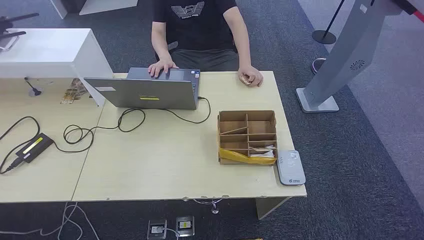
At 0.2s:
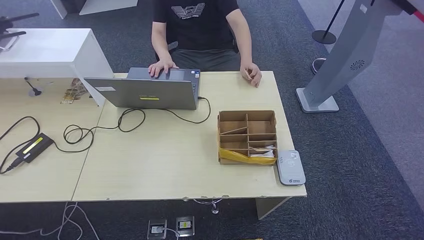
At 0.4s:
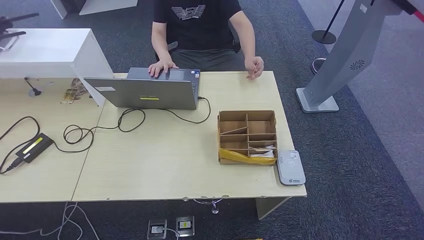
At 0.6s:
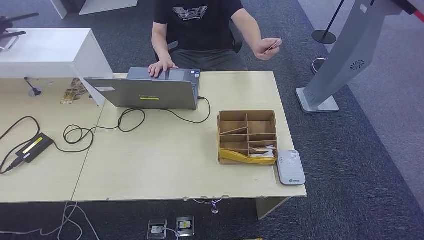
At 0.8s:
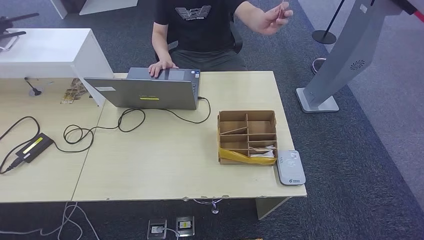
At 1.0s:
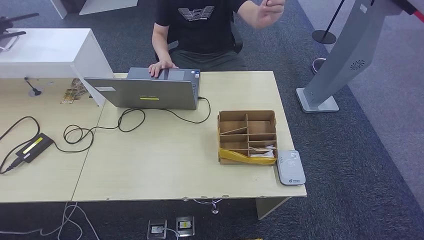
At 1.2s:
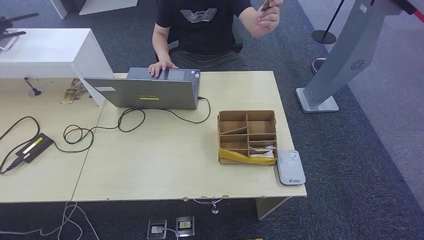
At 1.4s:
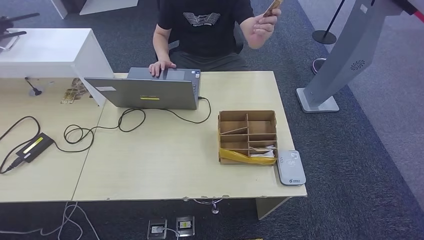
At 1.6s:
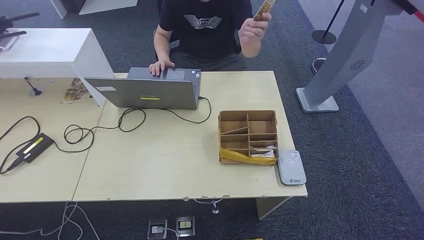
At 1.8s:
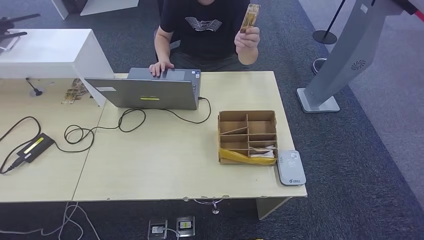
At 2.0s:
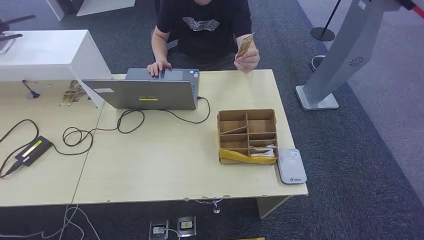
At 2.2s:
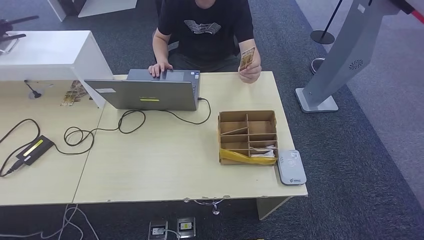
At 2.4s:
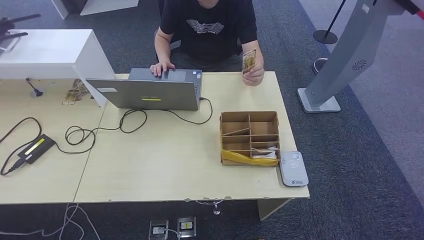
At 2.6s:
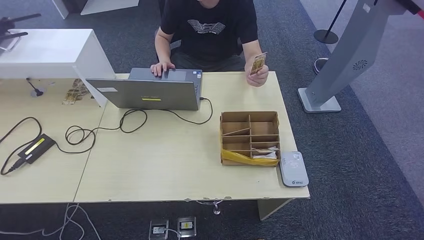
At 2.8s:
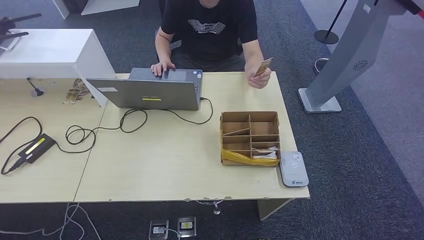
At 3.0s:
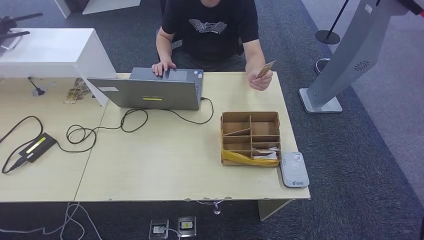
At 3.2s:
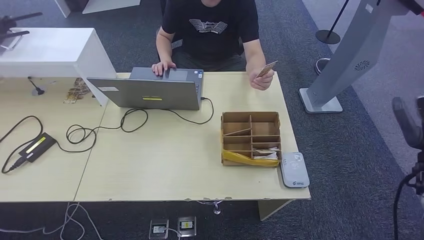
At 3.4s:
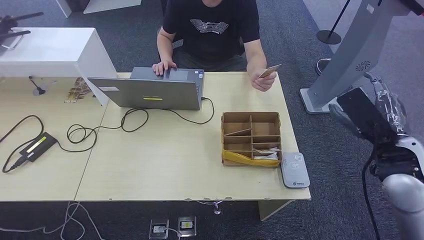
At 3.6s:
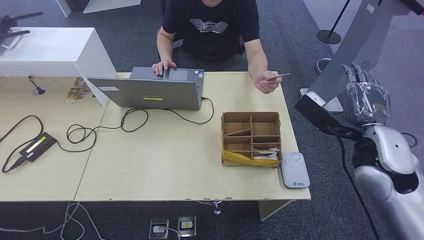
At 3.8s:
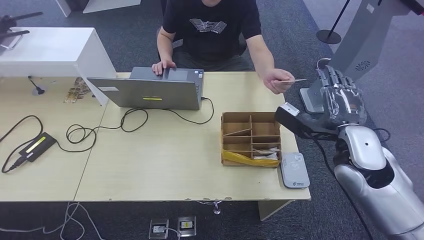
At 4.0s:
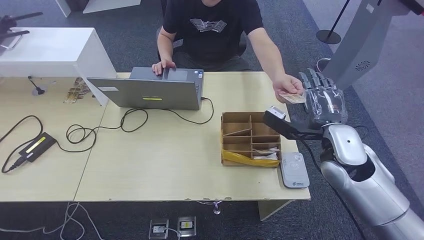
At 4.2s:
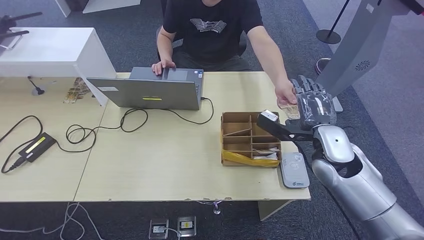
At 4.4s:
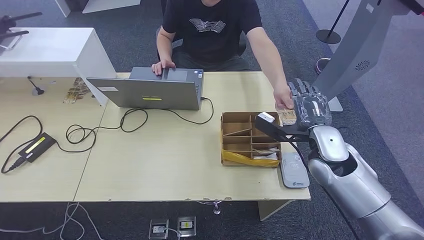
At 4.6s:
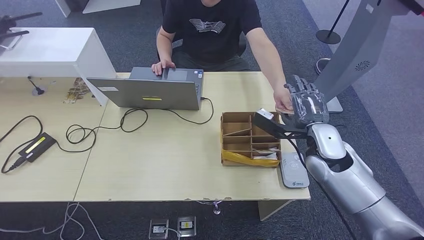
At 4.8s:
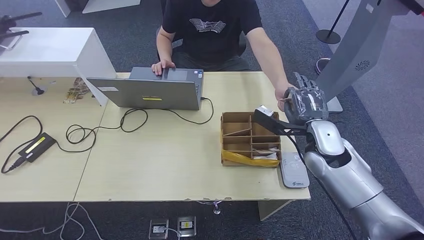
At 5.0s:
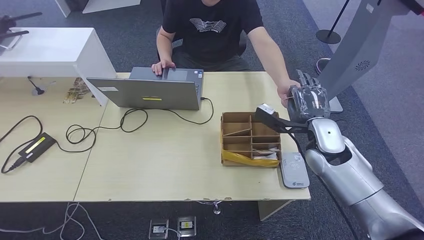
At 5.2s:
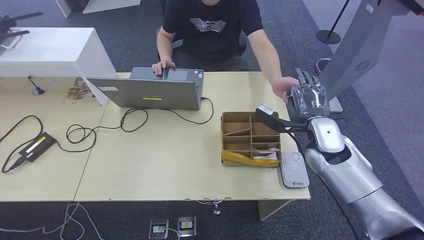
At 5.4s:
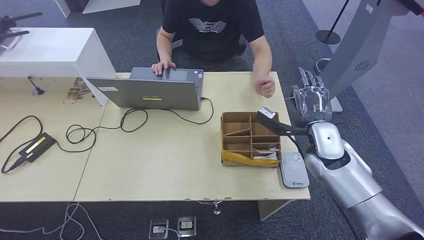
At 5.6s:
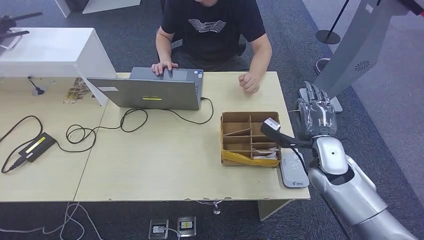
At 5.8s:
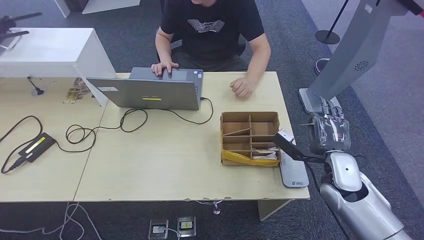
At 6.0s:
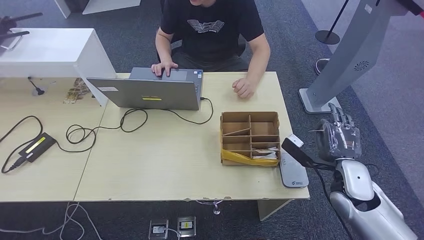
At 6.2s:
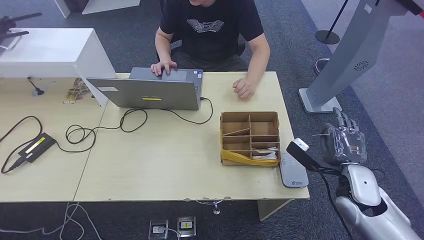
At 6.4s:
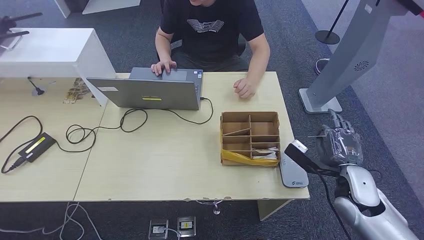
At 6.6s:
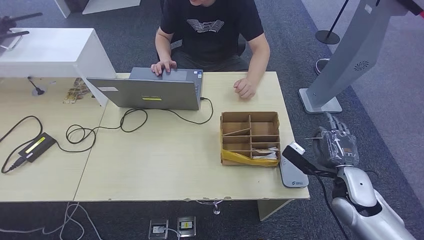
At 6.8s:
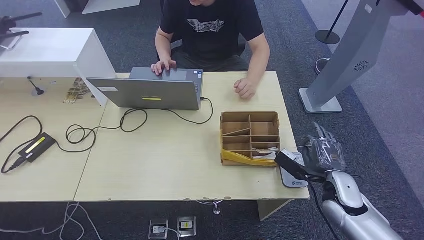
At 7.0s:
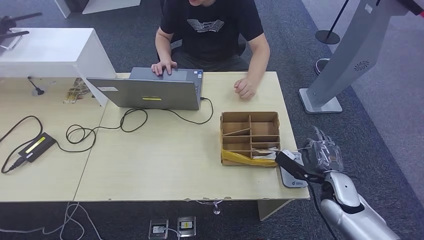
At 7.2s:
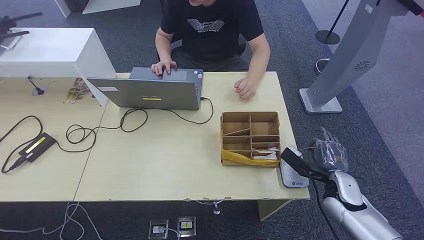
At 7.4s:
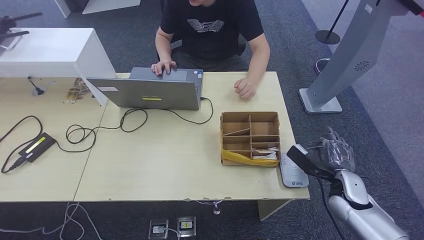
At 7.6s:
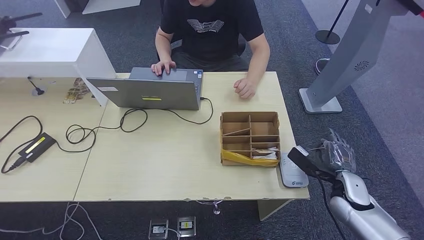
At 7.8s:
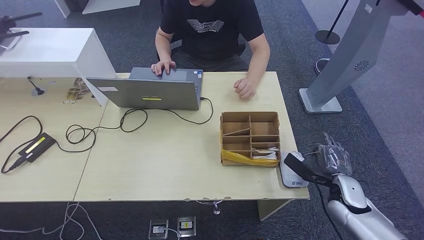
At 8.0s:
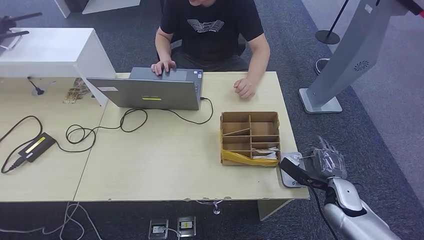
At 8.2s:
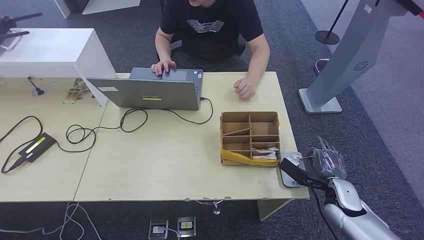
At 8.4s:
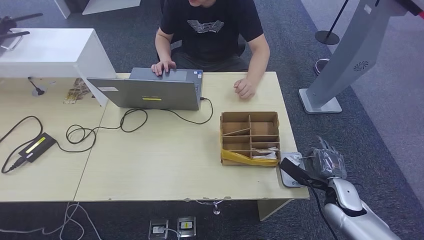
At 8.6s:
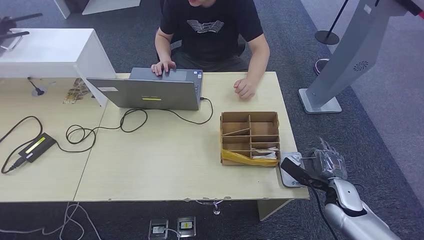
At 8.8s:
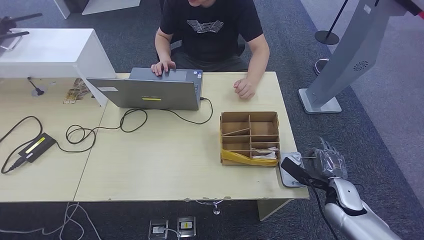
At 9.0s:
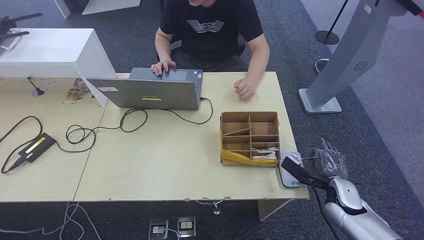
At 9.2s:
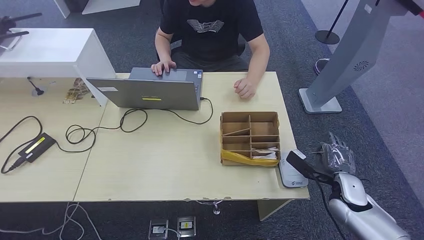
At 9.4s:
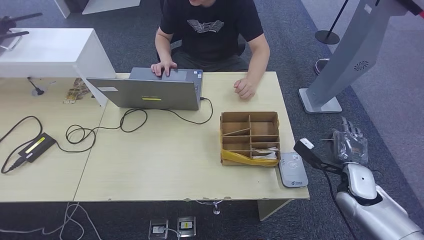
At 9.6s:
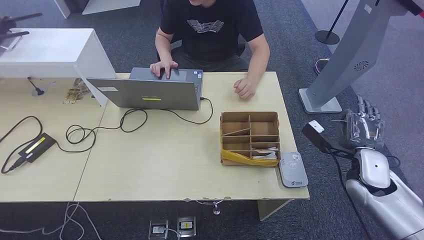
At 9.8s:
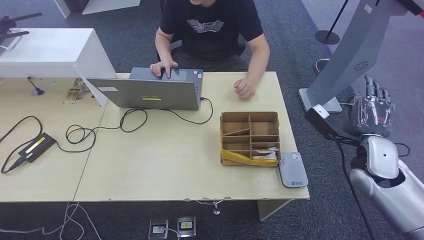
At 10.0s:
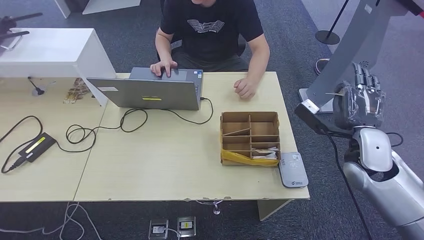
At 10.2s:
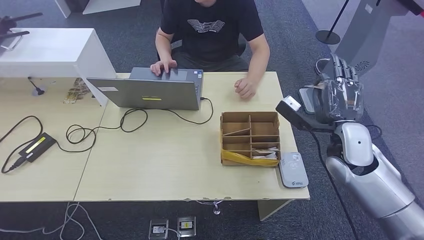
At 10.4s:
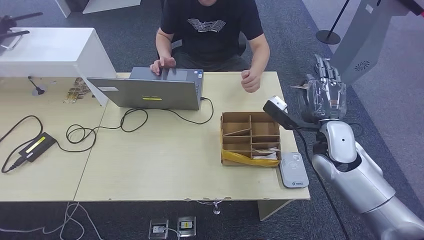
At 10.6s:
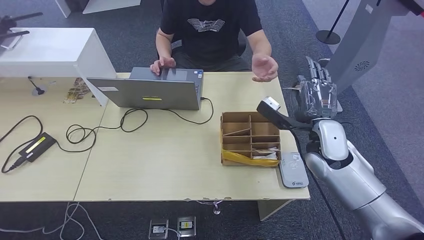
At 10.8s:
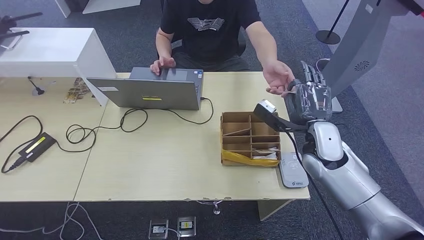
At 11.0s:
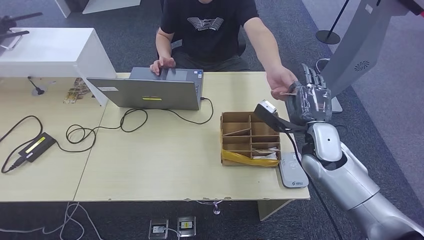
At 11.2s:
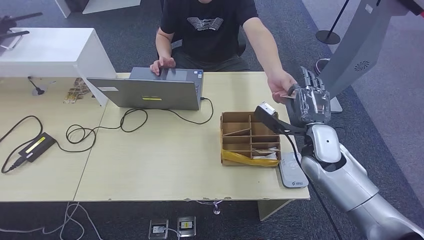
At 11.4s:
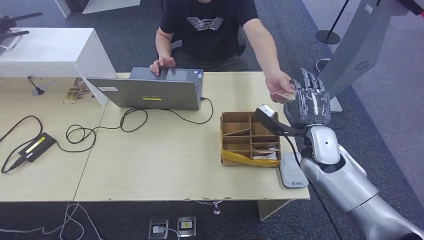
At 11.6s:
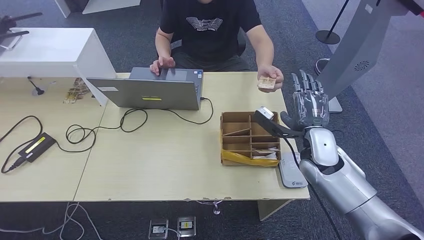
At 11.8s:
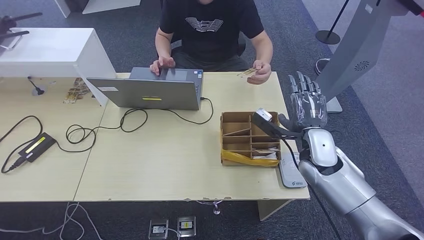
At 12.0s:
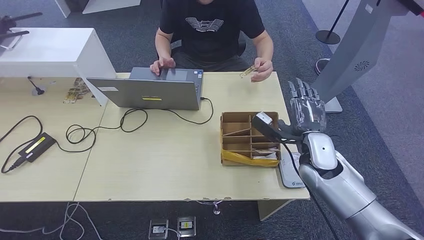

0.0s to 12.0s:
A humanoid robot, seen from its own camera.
Step, 0.0s to 5.0s: Take the ID card from the person's hand.
Step, 5.4s to 9.0s: Place the ID card on the card reader.
Step, 9.4s to 11.4s: Hand the ID card to the person.
1.6s to 3.0s: The right hand goes about 40 cm upward and forward.
3.0s to 4.4s: The right hand shifts about 25 cm to the left and forward.
4.4s to 6.0s: The right hand goes roughly 10 cm to the right, downward and backward.
6.0s to 7.6s: The right hand heads downward, covering approximately 5 cm.
7.6s to 9.0s: There are only small adjustments of the hands.
9.0s to 10.4s: The right hand moves upward, to the left and forward, about 20 cm.
10.4s to 12.0s: The right hand ends up roughly 5 cm from where it was.

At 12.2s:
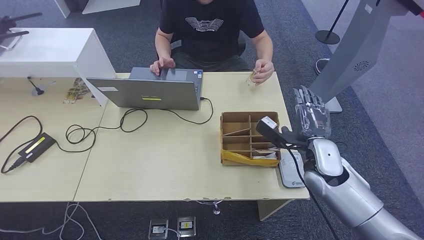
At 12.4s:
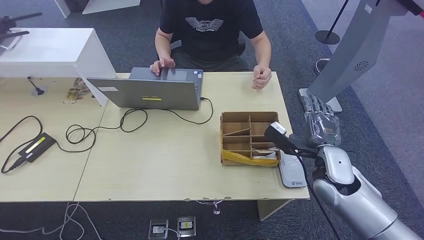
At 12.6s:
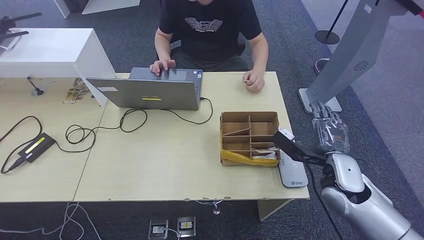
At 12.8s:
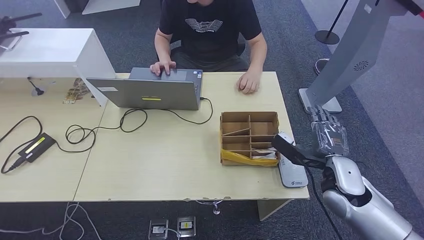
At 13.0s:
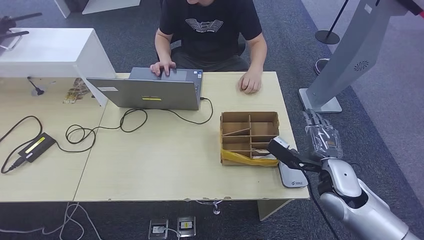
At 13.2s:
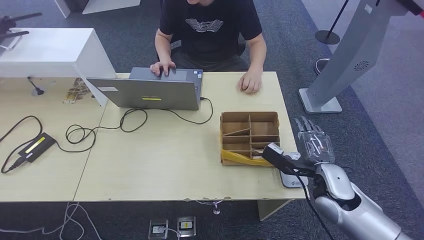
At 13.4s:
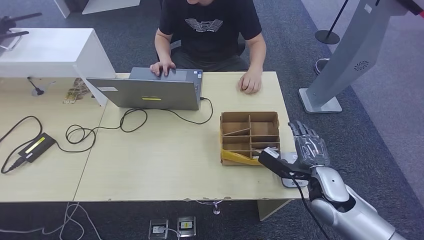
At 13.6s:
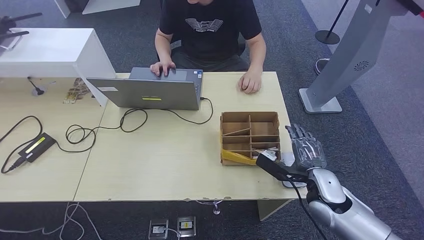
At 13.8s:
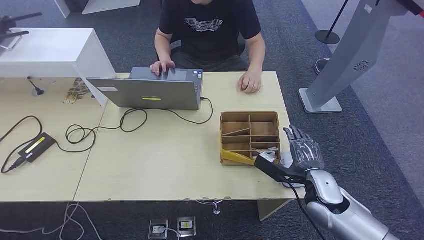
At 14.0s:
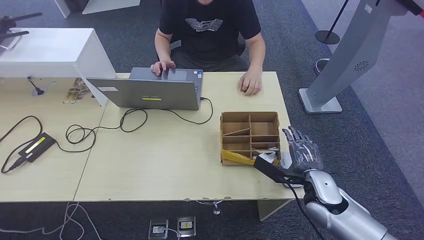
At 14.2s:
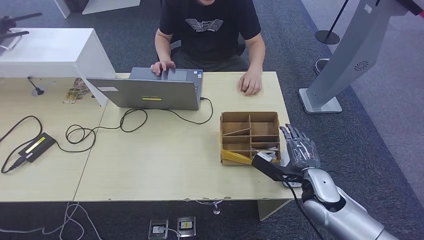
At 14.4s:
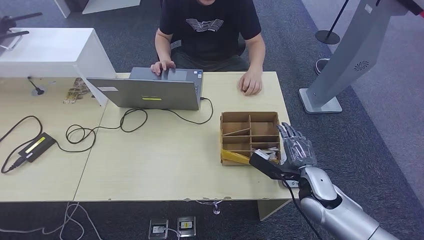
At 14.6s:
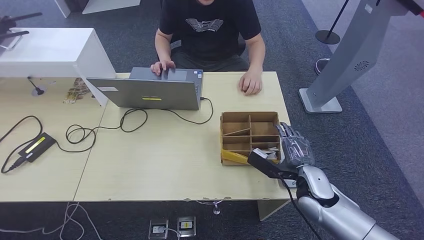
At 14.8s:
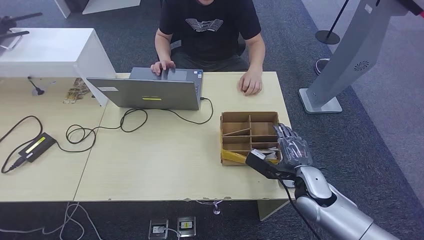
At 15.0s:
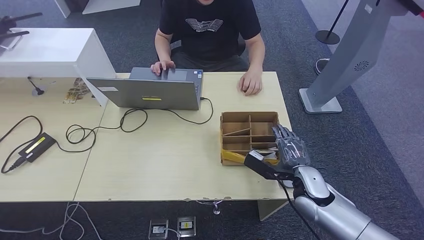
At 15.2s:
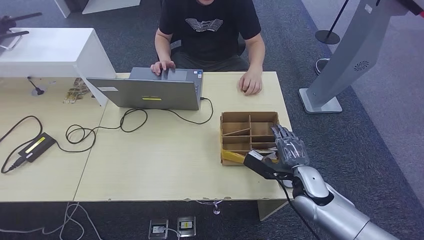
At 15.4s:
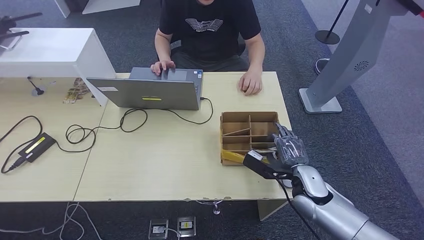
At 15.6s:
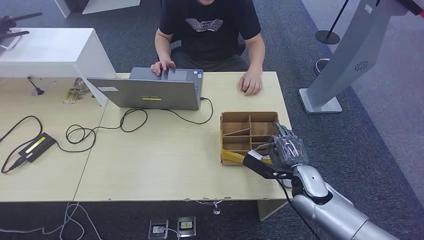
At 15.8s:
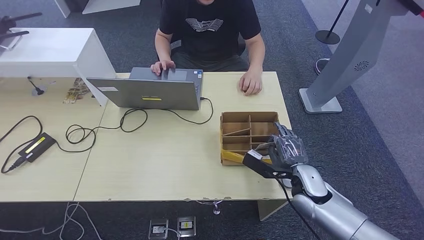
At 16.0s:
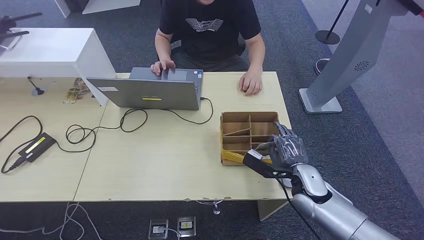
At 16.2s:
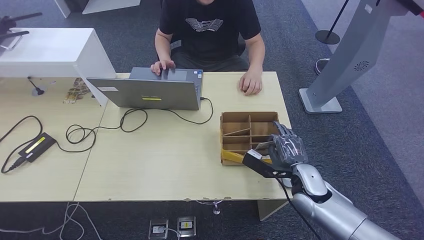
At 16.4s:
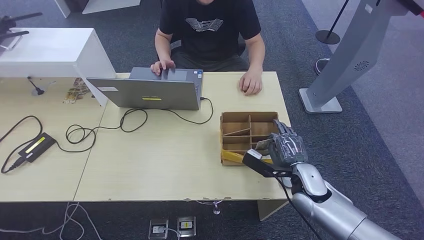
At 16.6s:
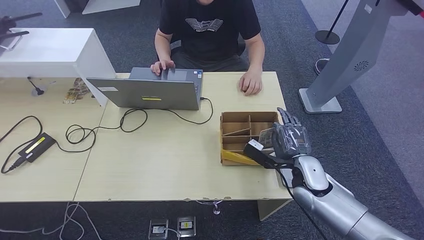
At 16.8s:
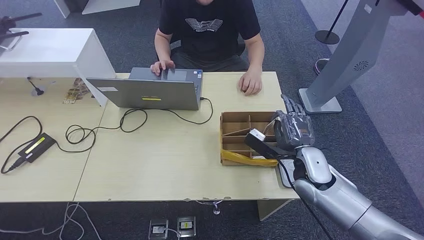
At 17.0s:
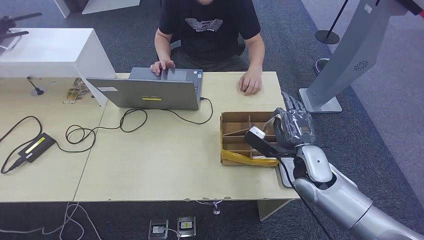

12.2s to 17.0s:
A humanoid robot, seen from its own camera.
12.2s to 13.8s: The right hand moves downward and backward, approximately 10 cm.
13.8s to 15.4s: The hands stay close to where they were, moving slightly.
15.4s to 17.0s: The right hand is displaced upward by some 5 cm.
